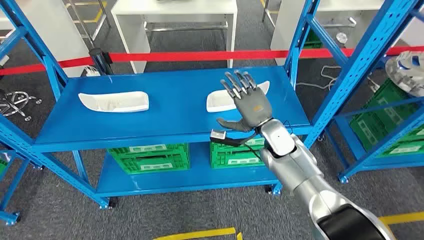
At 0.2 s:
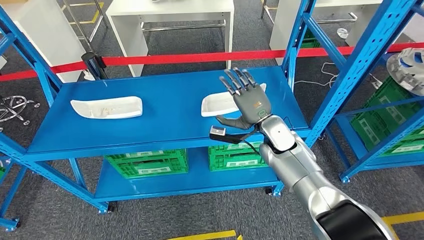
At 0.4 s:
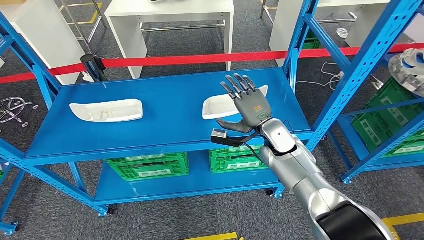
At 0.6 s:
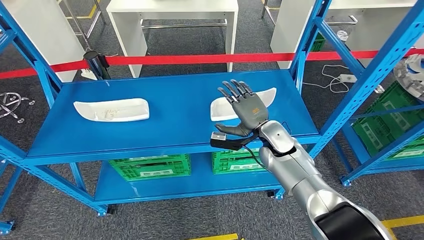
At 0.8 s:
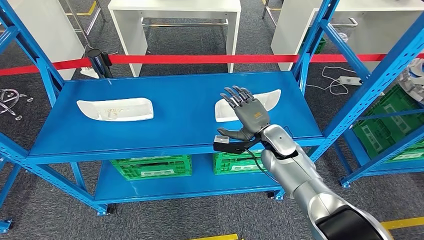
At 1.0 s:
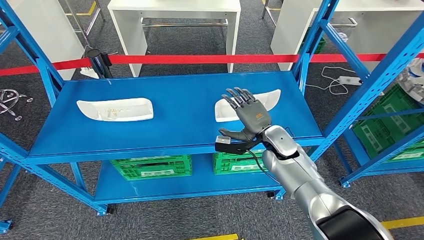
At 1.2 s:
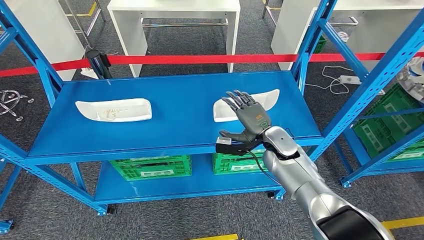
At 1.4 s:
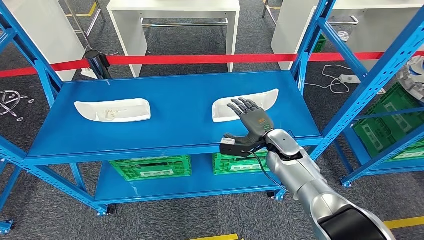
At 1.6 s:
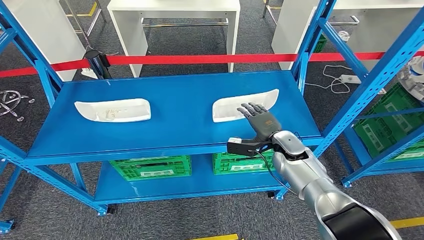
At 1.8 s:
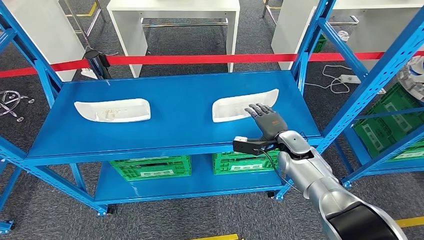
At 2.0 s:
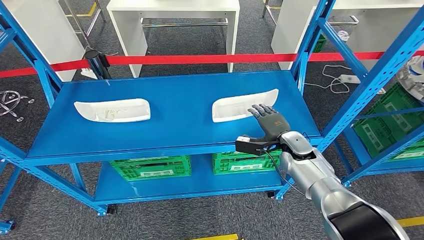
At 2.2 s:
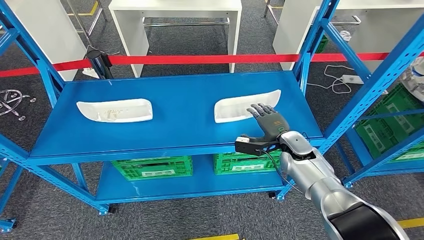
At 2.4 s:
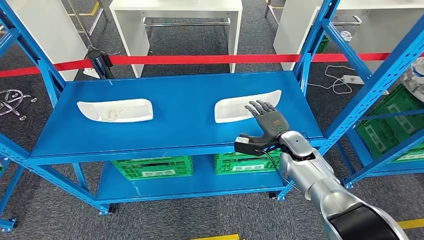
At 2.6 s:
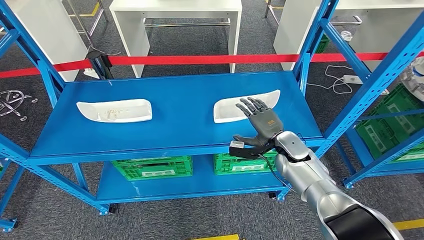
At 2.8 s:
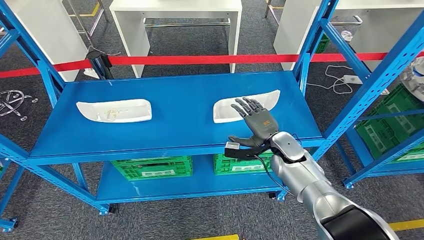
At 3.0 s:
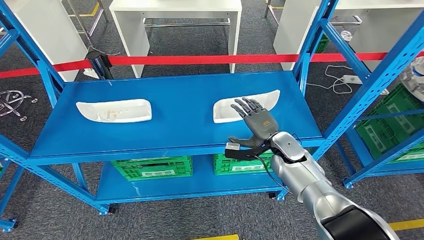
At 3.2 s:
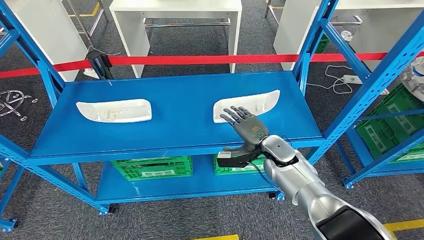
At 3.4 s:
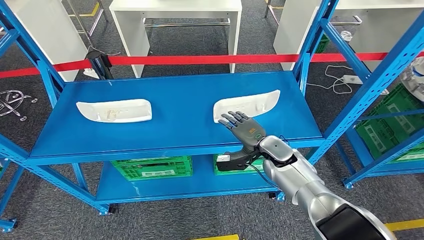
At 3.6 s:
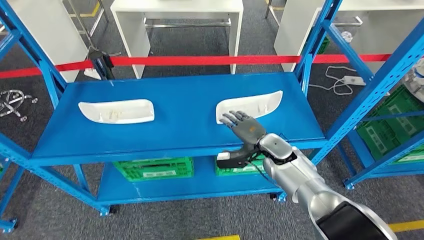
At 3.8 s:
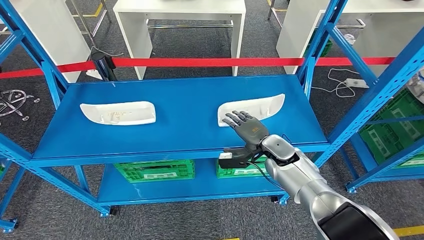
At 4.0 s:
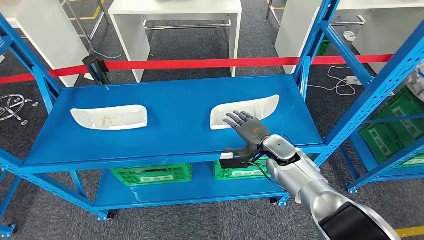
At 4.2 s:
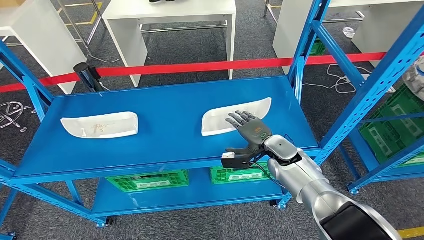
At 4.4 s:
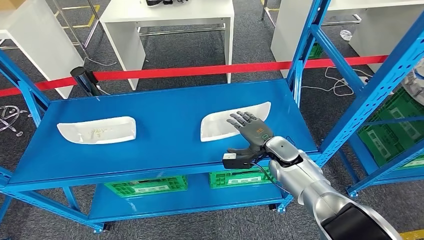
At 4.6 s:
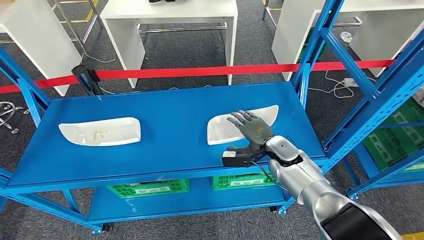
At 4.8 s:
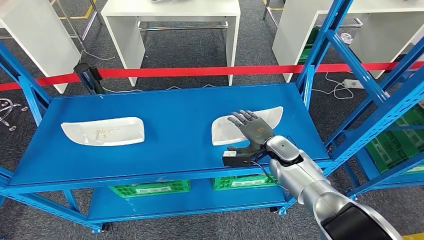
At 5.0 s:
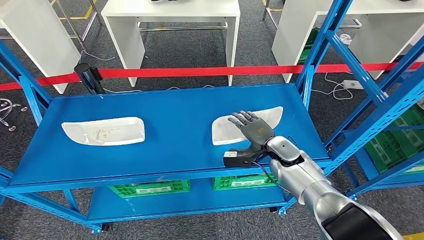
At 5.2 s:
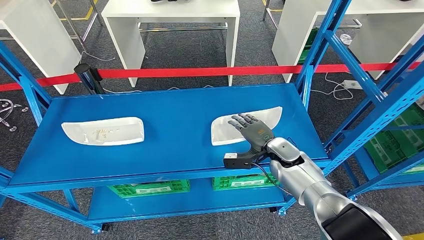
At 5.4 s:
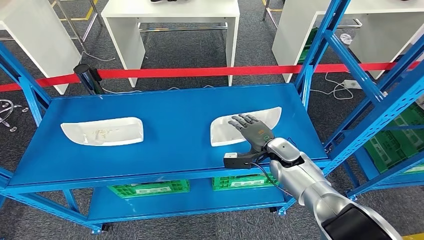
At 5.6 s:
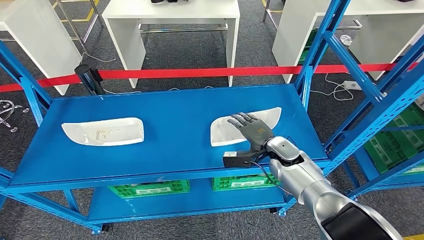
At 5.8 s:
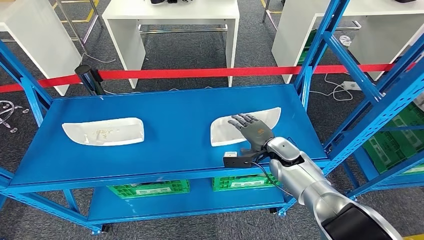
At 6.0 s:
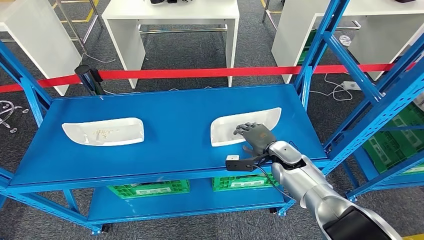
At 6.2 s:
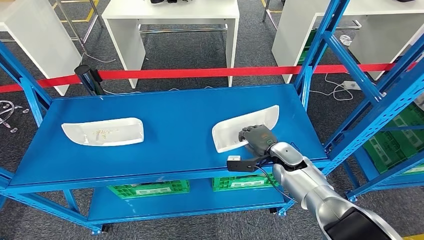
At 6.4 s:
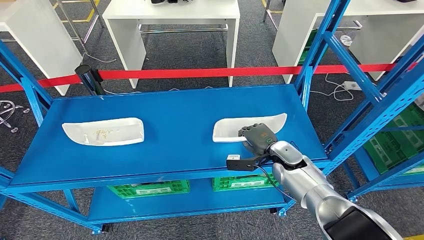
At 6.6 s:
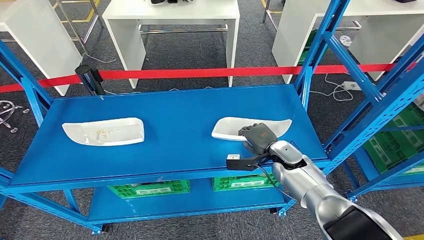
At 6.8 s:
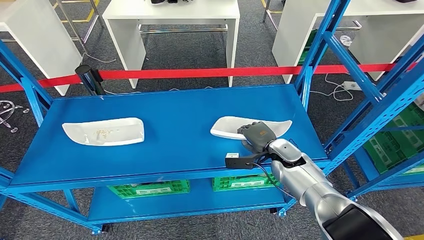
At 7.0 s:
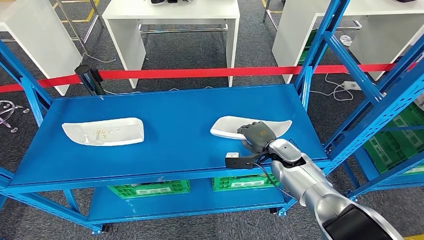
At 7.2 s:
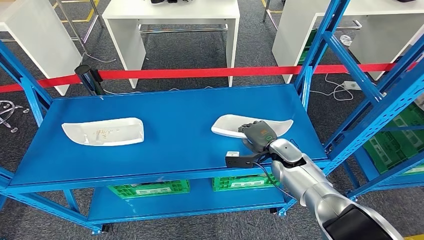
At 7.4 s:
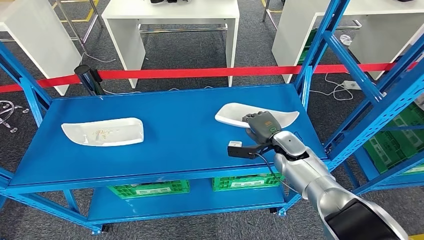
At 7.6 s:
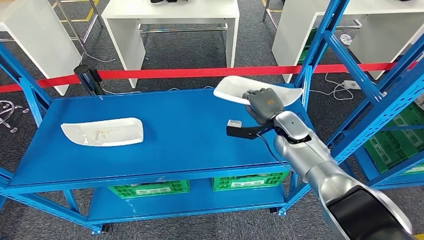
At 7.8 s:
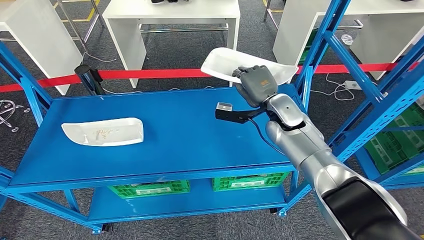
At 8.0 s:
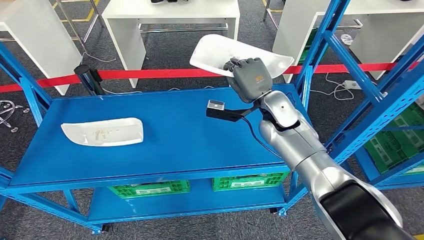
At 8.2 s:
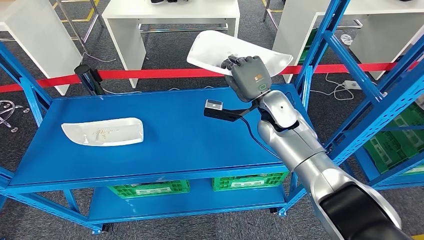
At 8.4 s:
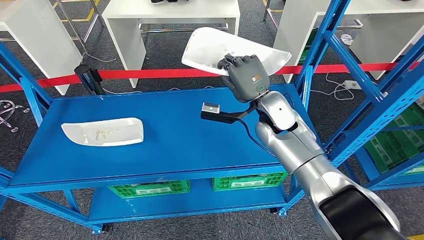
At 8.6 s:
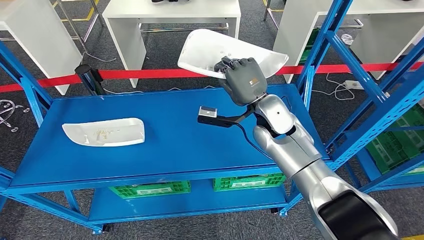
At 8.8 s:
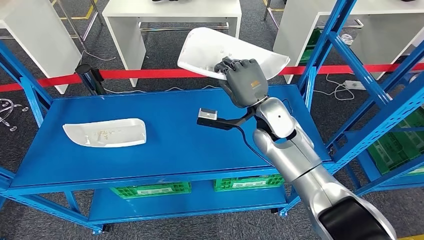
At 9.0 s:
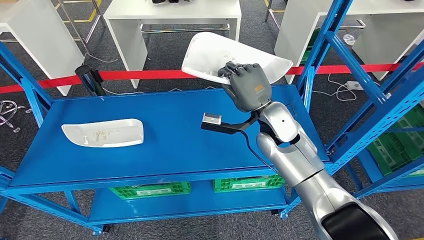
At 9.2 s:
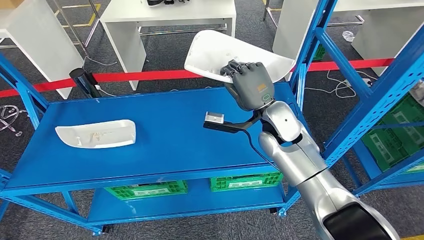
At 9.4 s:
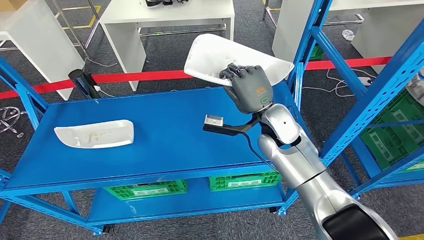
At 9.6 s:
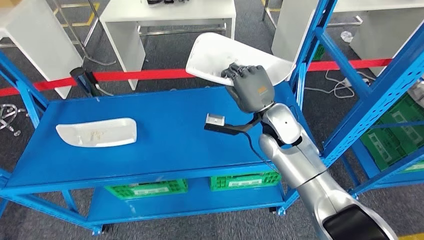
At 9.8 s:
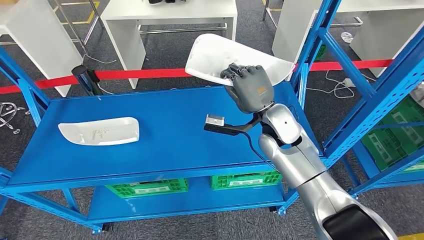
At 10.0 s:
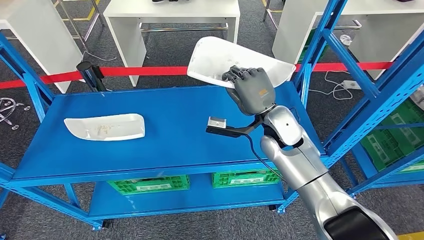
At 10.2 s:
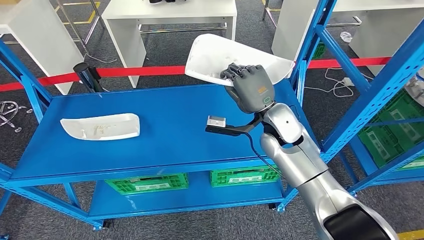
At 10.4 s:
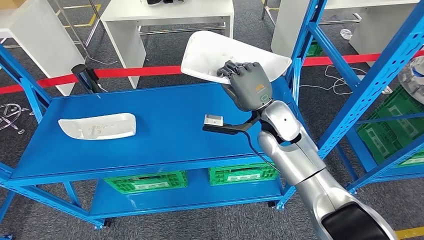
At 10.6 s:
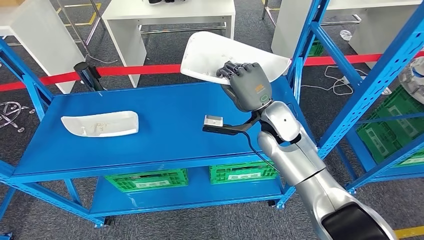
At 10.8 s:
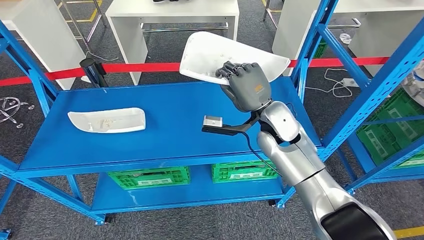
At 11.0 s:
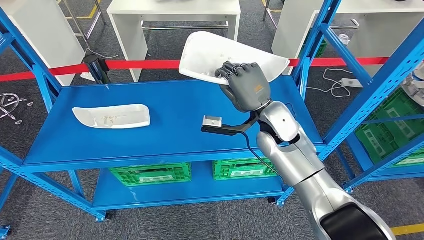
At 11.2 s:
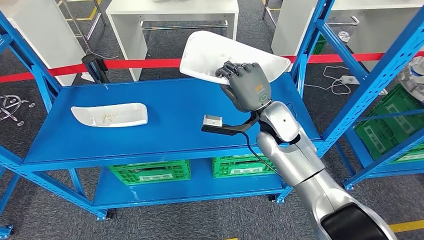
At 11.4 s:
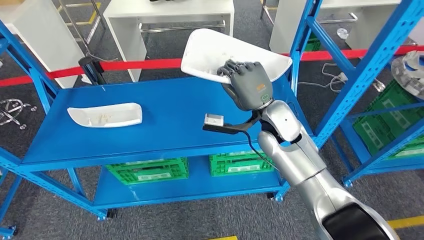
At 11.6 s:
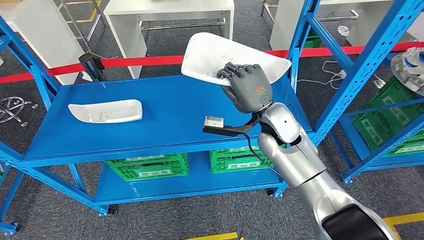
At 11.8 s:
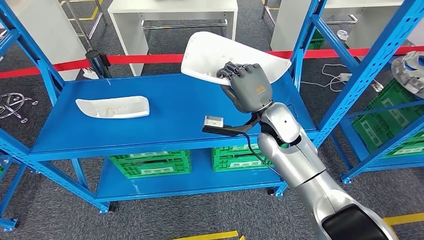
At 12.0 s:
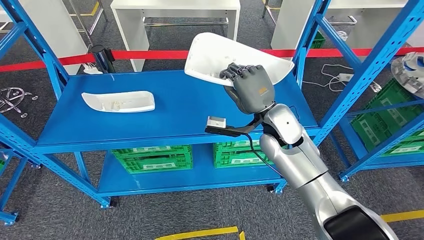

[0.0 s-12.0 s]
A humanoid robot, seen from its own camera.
Step, 0.0 to 7.6 s: Pick up the small component from the shelf.
1.6 to 3.0 s: The hands stay close to where they were, moving slightly.
6.0 to 7.6 s: The right hand goes roughly 10 cm upward and forward.

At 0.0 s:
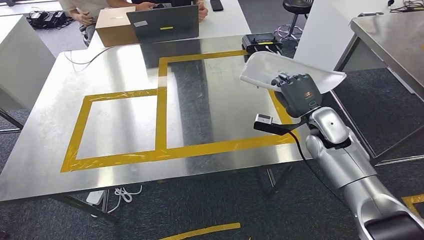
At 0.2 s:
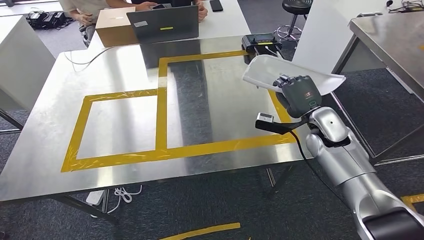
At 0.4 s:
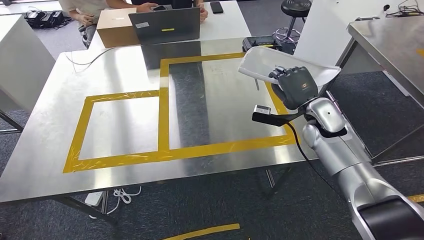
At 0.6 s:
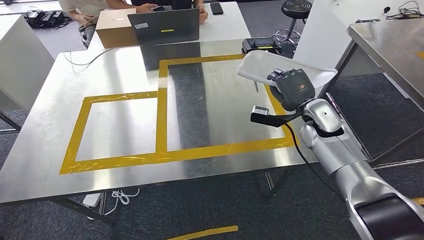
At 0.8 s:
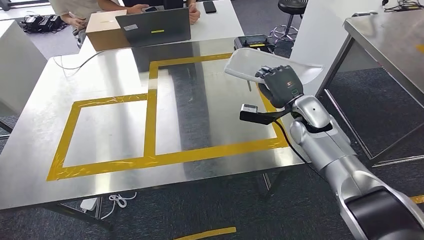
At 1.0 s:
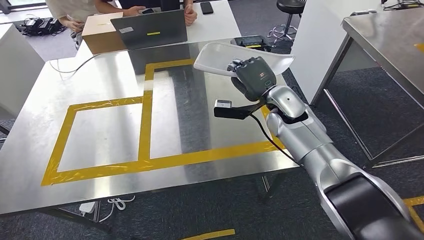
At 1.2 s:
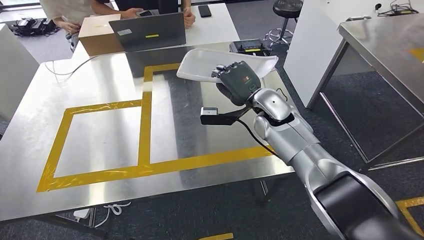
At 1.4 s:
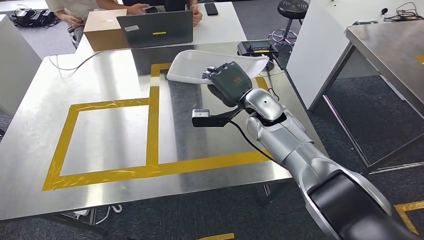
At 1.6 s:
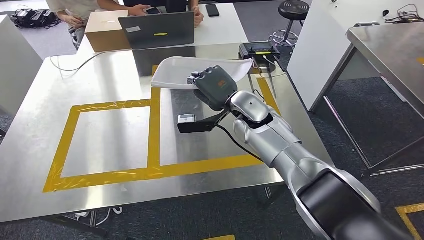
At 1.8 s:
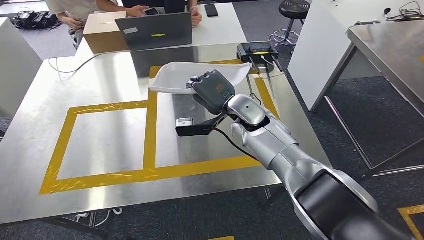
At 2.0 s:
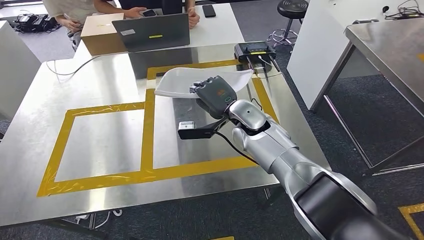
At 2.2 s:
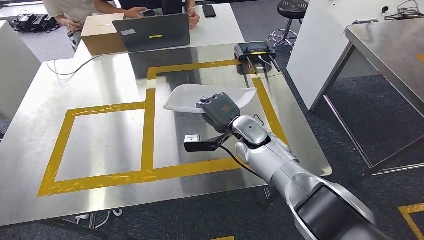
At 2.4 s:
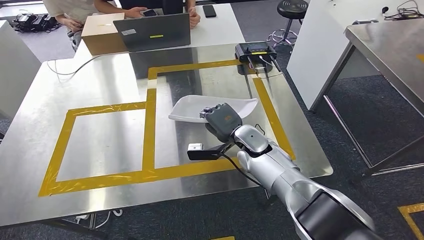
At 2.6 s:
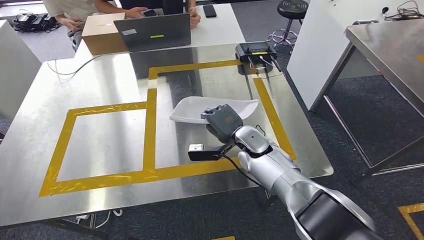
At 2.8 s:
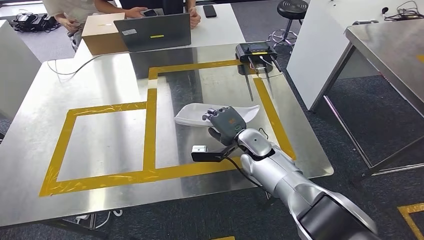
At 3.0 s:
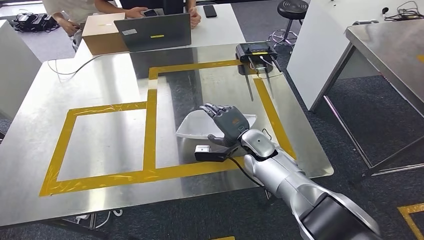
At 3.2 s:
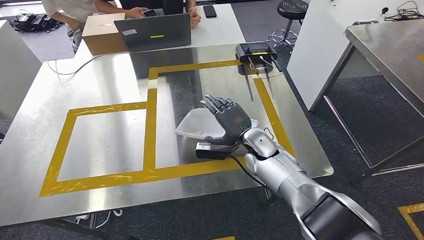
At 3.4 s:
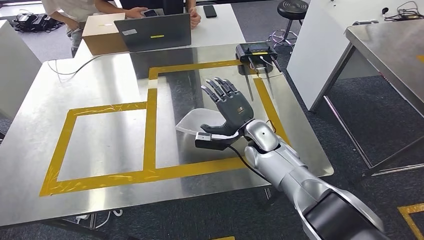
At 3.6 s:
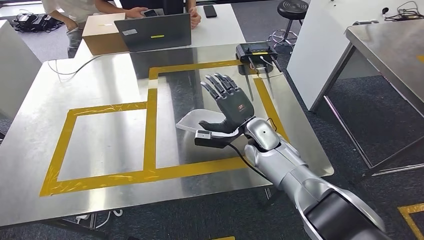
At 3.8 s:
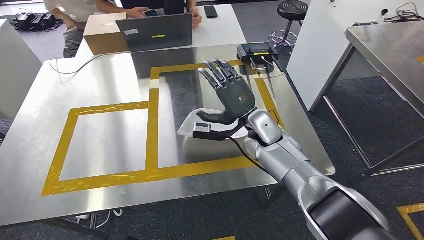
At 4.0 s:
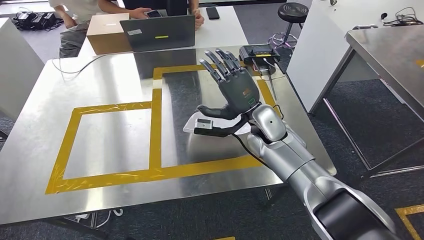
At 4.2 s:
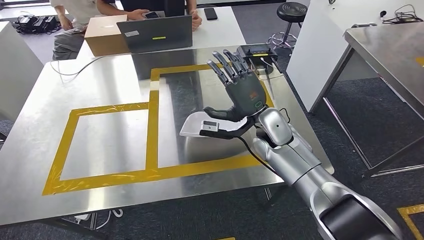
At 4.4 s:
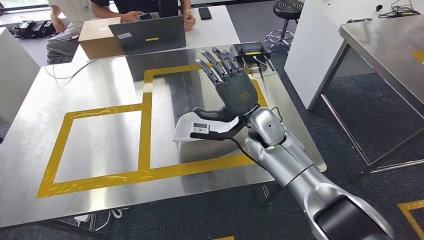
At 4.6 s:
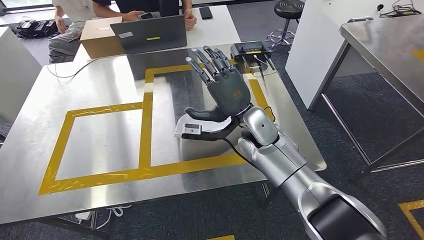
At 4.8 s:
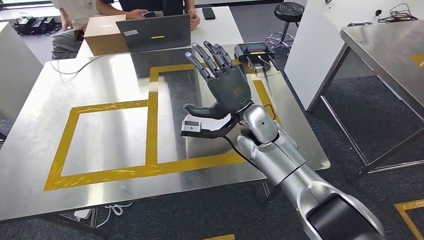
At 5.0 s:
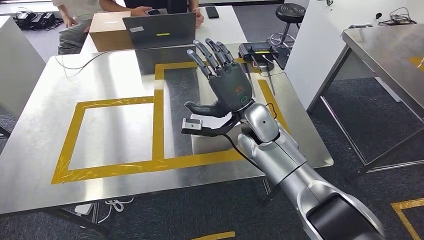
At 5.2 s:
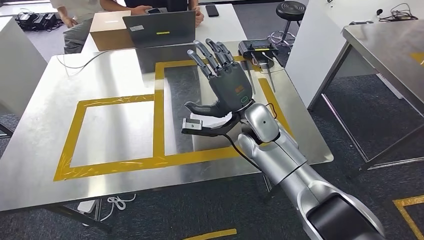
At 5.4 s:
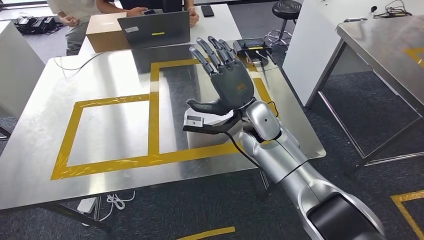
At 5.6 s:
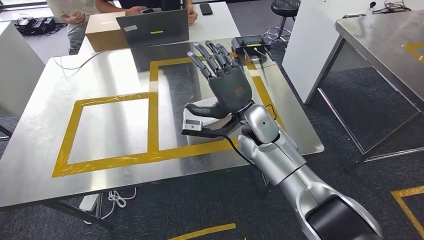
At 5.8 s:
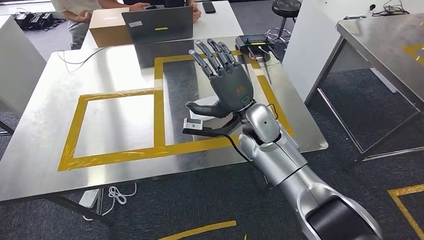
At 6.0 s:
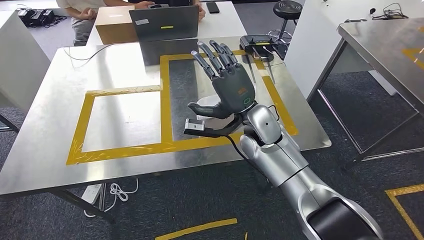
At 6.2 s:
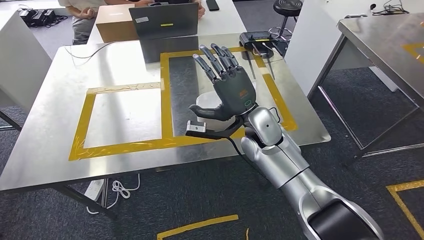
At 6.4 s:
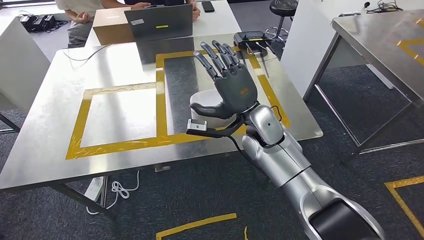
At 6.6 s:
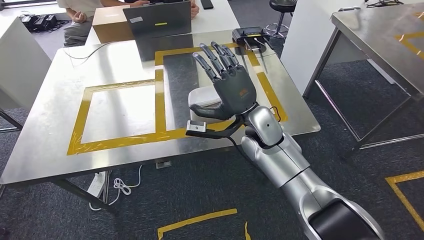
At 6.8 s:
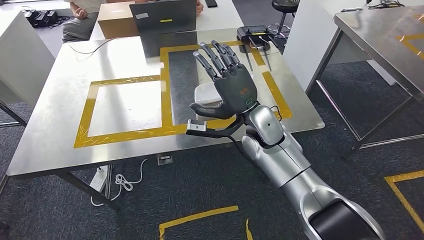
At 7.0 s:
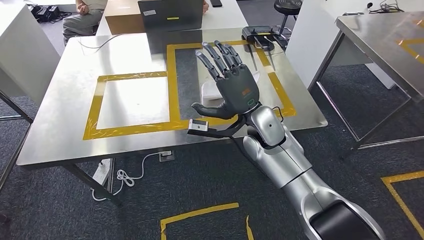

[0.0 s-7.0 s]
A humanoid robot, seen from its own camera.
Step, 0.0 to 3.6 s: Insert the small component into the corresponding slot on the workbench.
